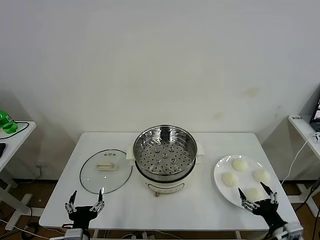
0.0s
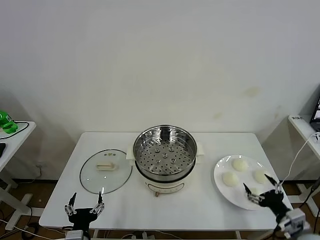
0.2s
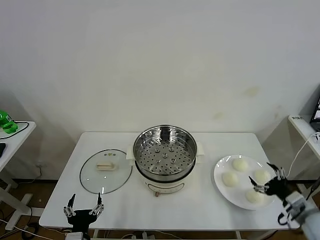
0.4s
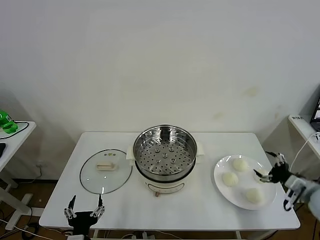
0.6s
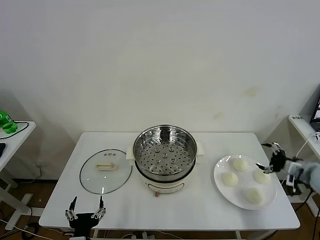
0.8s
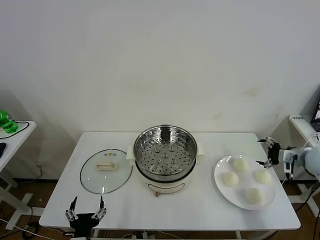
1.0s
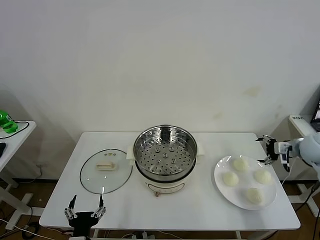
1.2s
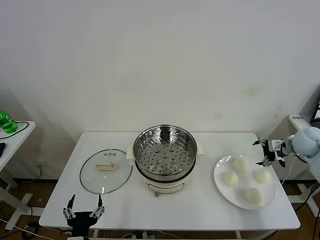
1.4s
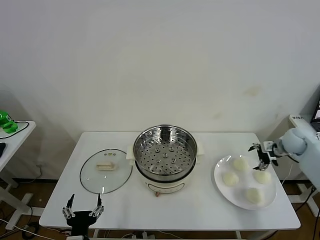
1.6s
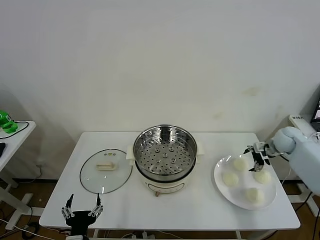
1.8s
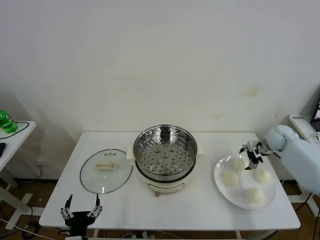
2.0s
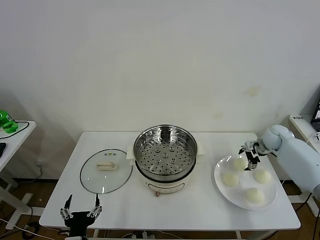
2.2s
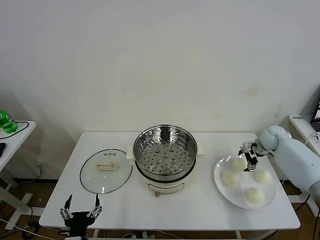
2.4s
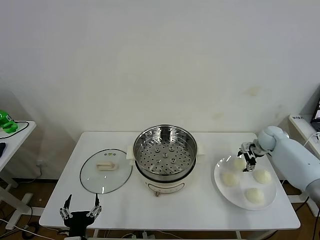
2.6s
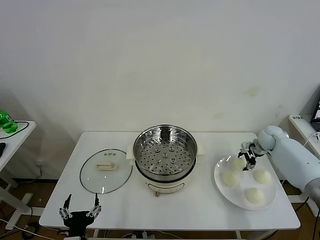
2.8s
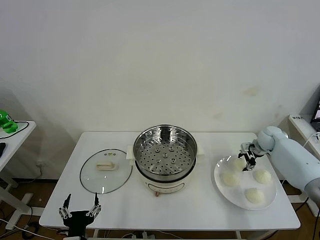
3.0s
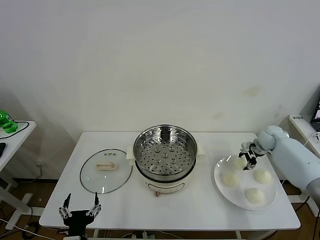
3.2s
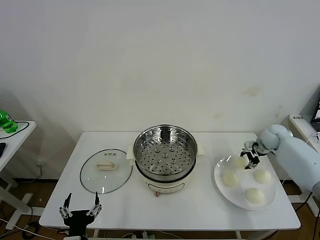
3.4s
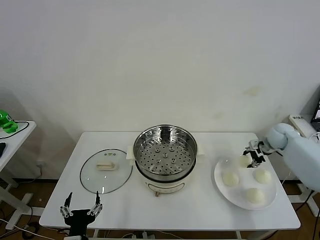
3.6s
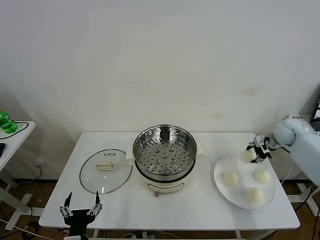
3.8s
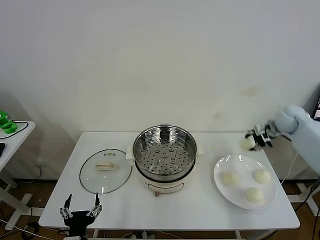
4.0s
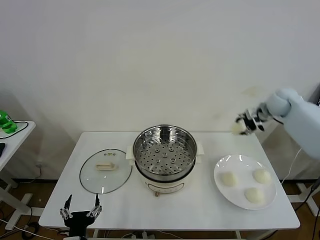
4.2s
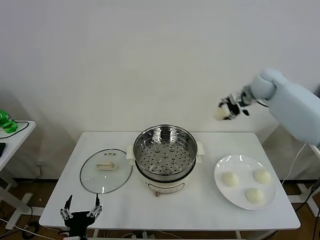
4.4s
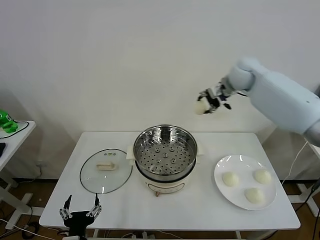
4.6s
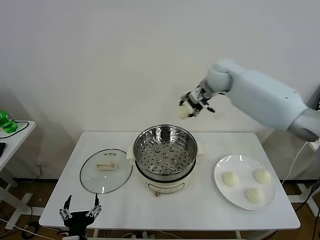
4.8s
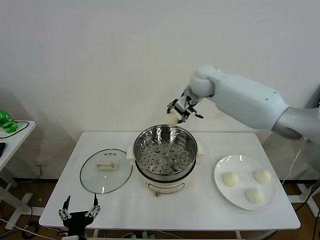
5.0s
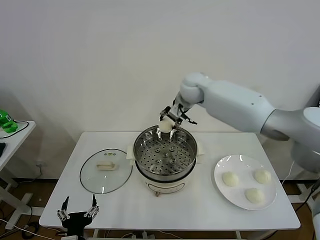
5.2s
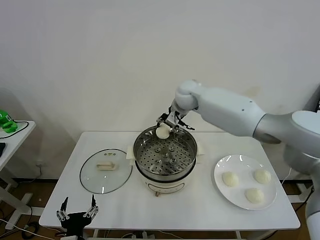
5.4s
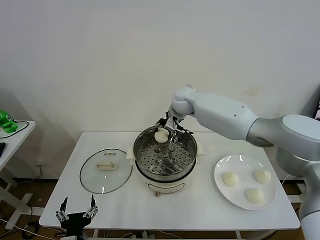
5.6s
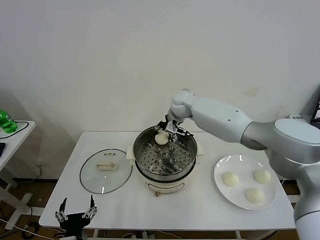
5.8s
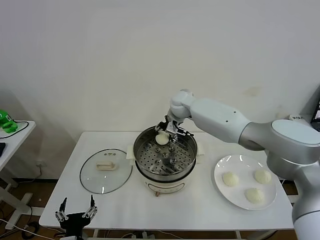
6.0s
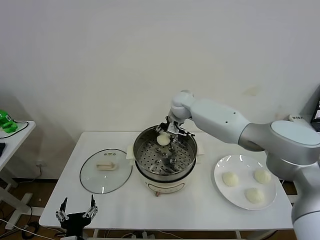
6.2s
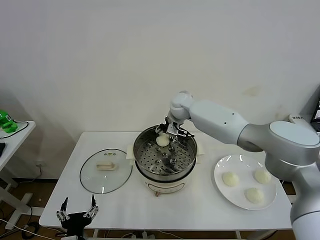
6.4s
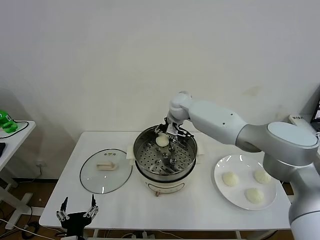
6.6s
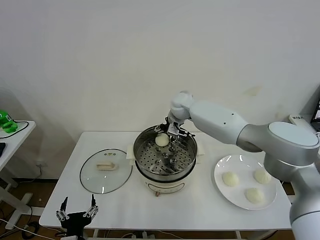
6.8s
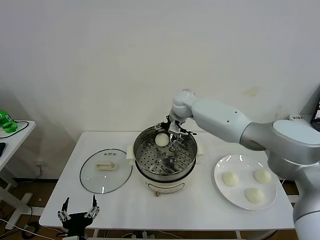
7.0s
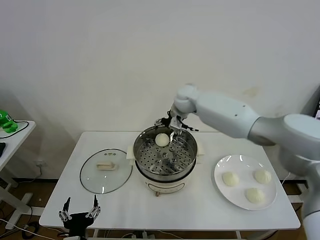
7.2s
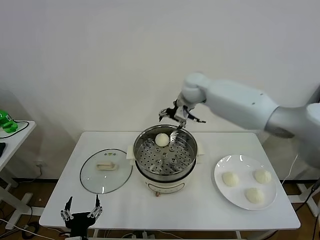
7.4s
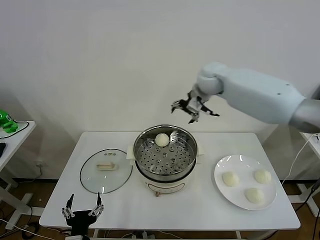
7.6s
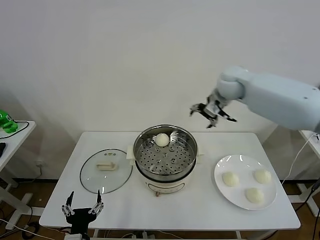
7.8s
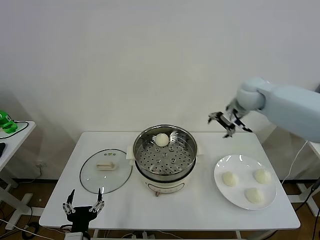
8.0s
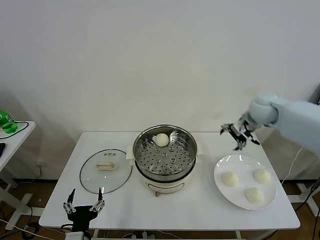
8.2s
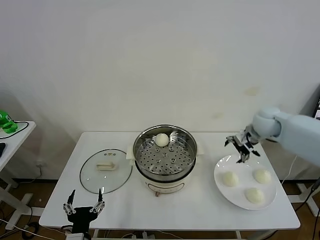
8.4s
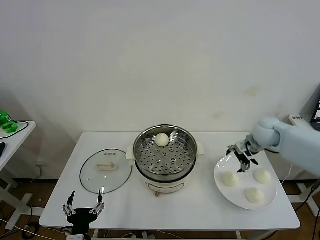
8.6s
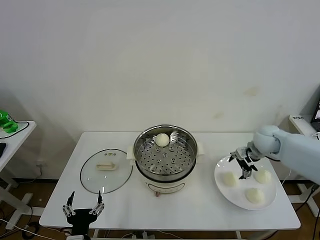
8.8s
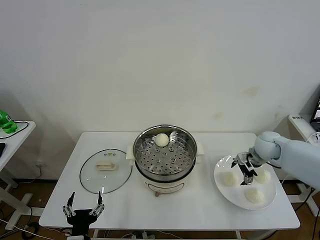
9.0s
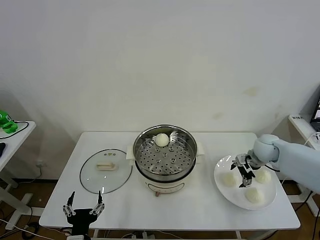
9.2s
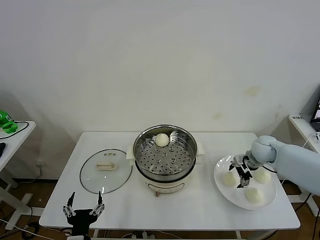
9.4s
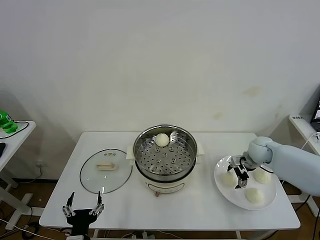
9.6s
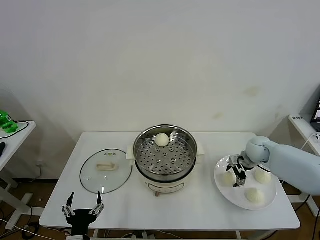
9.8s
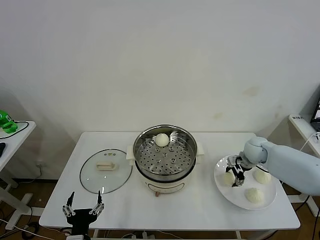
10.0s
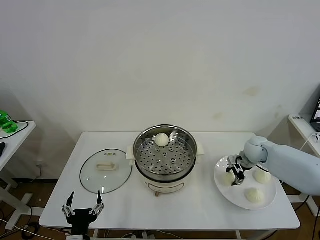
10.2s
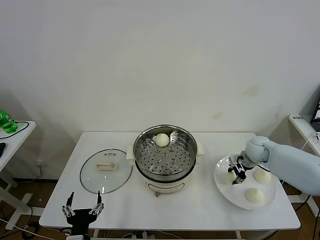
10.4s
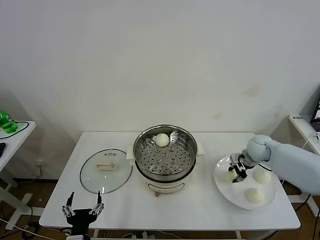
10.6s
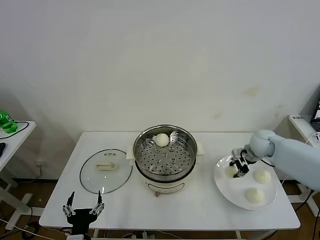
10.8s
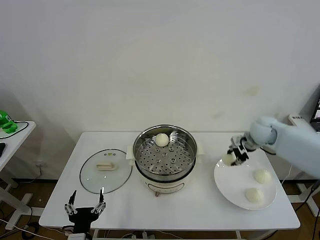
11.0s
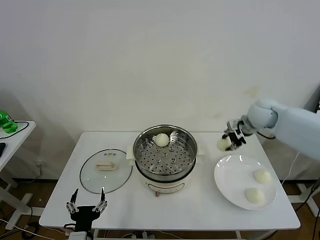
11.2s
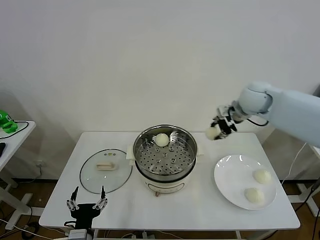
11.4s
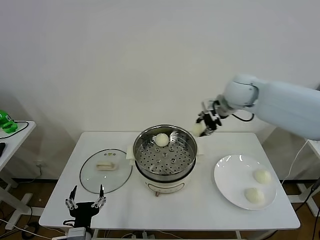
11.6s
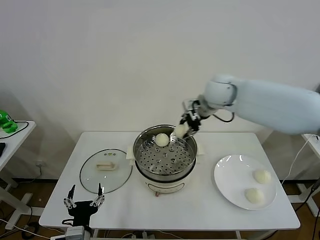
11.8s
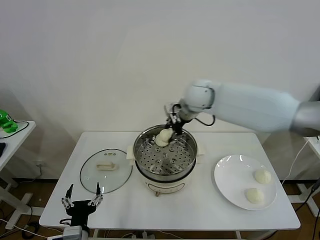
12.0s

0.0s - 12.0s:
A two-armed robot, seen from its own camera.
Task of the whole recording: take steamed baozi put them in steamer then cover it.
Step, 0.0s - 3.2s: Grasp the baozi in the plate with right gripper.
Step, 3.4s - 7.0s: Place the baozi on the steamer with right gripper.
Step, 7.2s - 10.6s: Grasp the baozi in the plate with right gripper.
1.6s - 3.0s: The right gripper ends up roughly 5 cm from where it was, and closes its fingers.
3.0s - 4.4s: The right gripper is displaced upward and to the left by roughly 30 cm.
4.4s - 6.0s: The right gripper is displaced to the left and downward by roughly 25 cm.
6.0s - 7.6s: The right gripper is displaced upward and to the right by about 15 cm, and opens.
7.6s - 9.0s: The right gripper heads downward, to the right and backward, covering about 30 cm.
9.0s - 10.4s: The right gripper closes.
10.4s - 12.0s: The right gripper moves to the left and upward, approximately 35 cm.

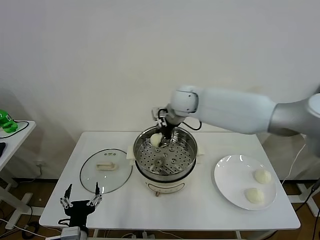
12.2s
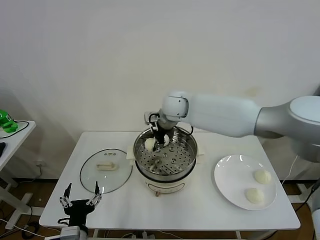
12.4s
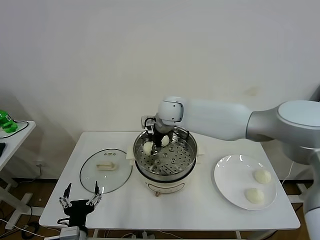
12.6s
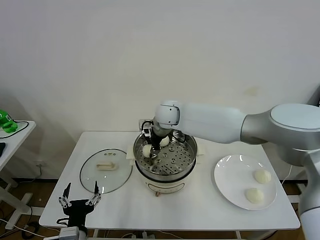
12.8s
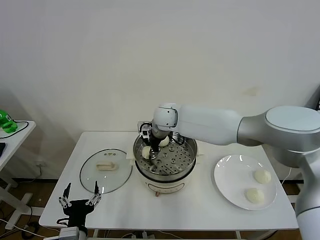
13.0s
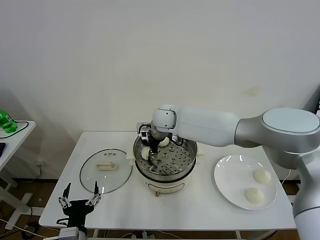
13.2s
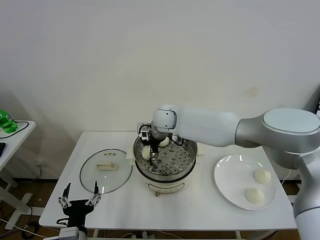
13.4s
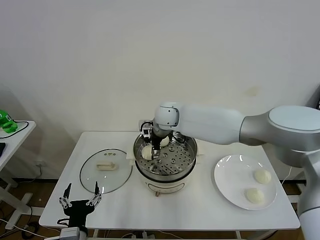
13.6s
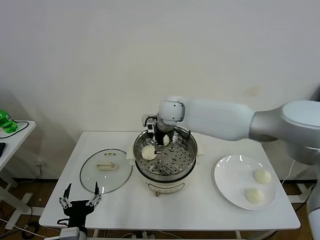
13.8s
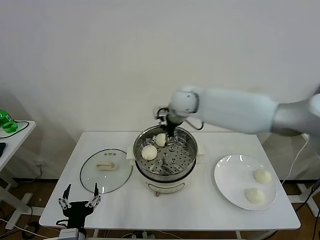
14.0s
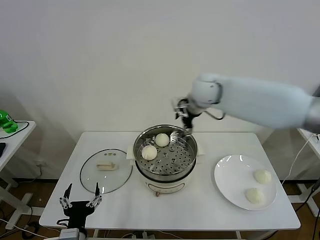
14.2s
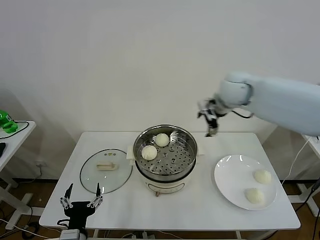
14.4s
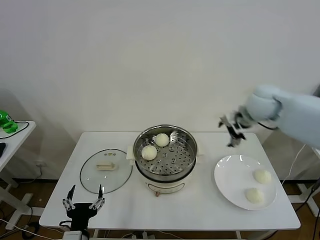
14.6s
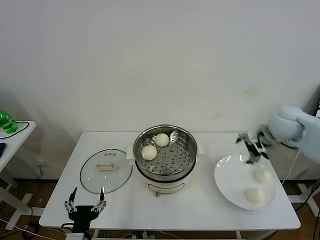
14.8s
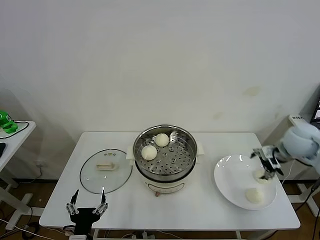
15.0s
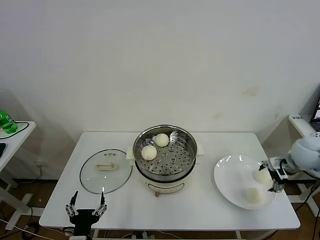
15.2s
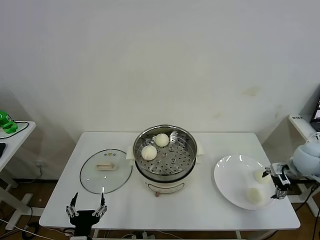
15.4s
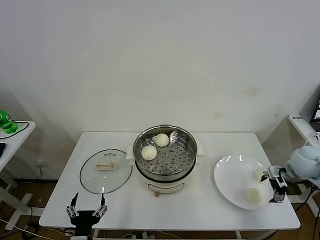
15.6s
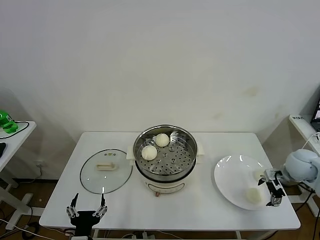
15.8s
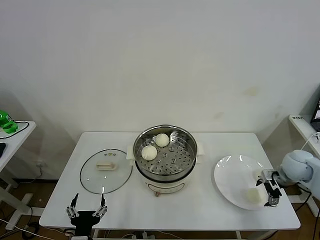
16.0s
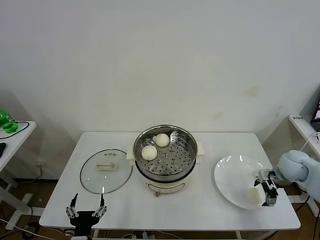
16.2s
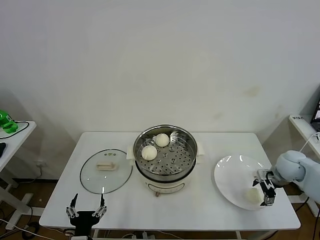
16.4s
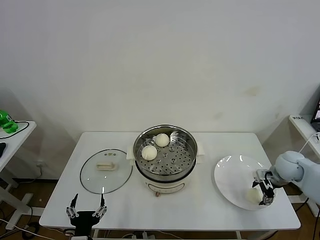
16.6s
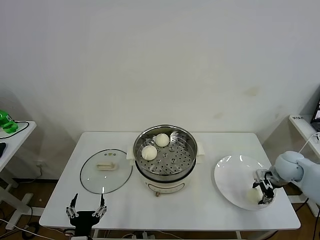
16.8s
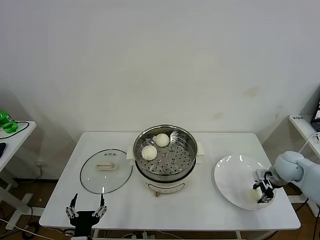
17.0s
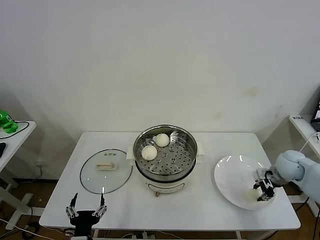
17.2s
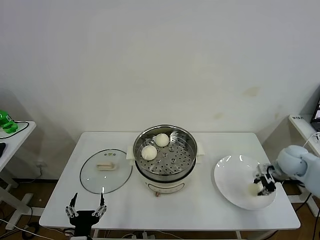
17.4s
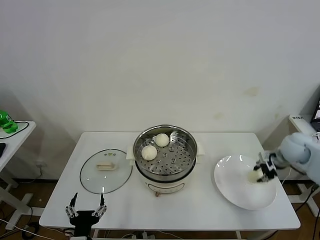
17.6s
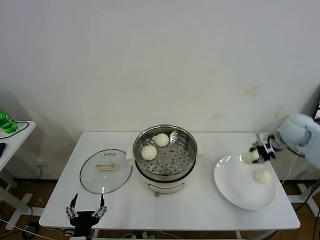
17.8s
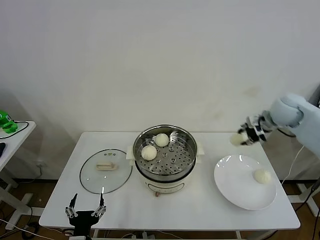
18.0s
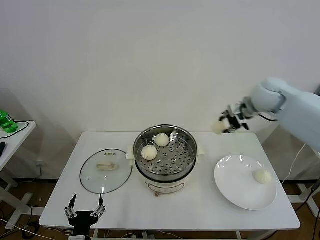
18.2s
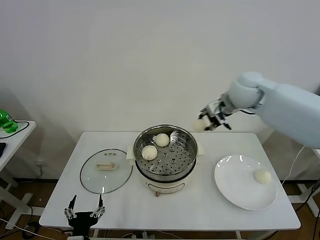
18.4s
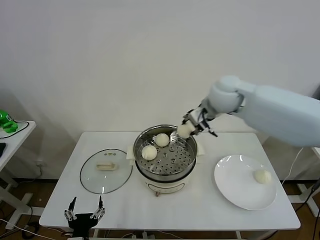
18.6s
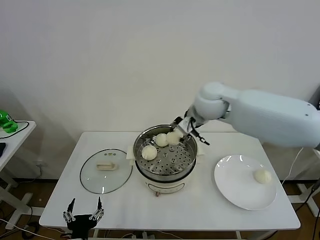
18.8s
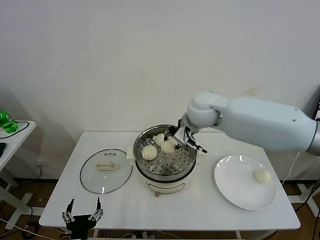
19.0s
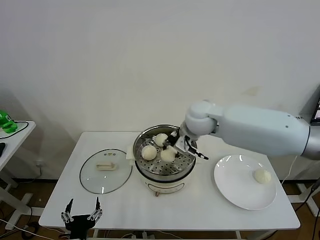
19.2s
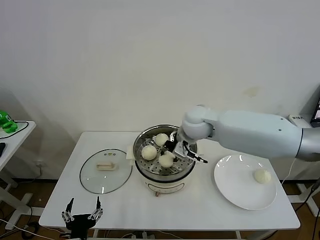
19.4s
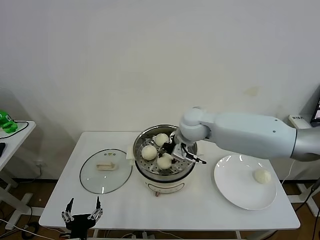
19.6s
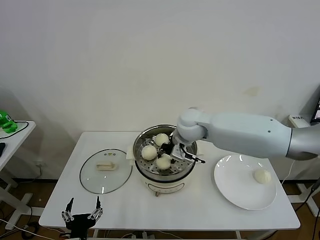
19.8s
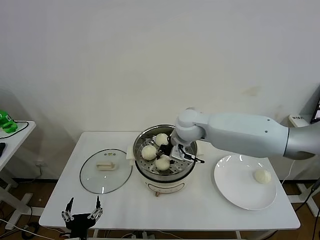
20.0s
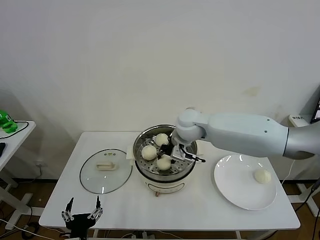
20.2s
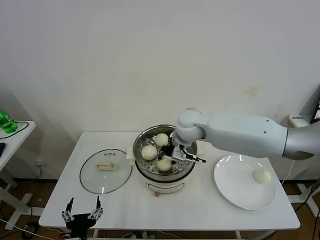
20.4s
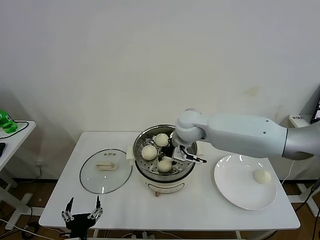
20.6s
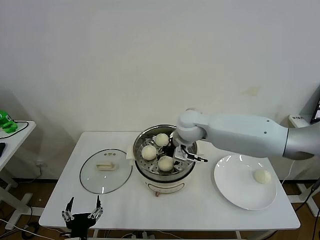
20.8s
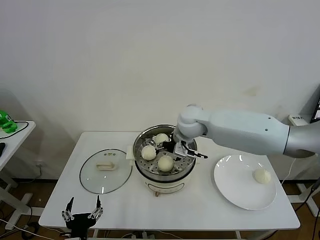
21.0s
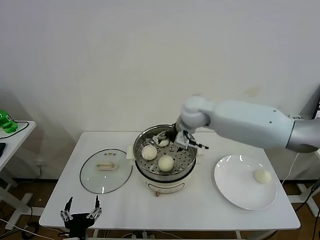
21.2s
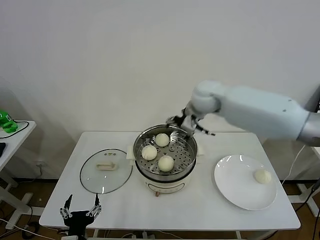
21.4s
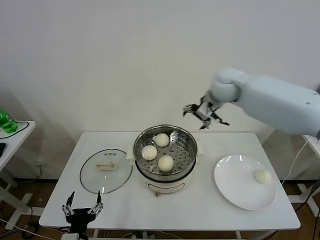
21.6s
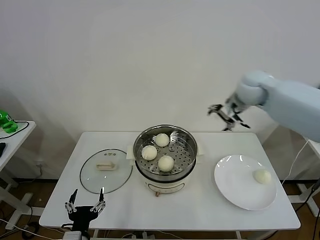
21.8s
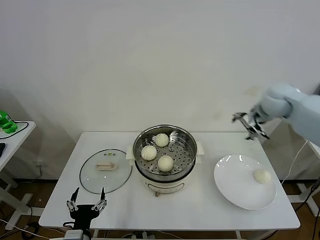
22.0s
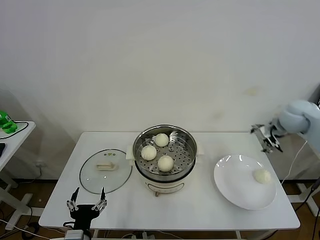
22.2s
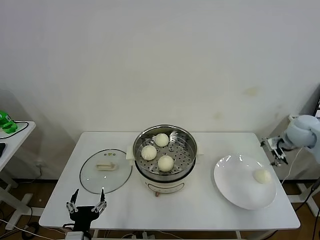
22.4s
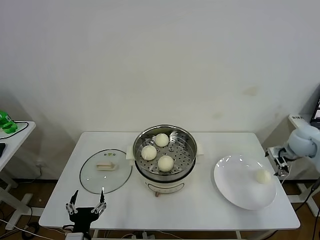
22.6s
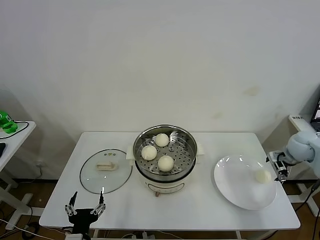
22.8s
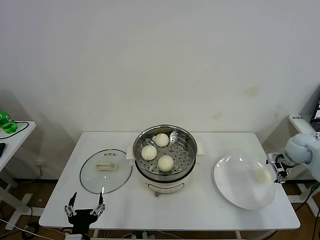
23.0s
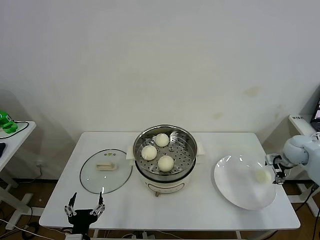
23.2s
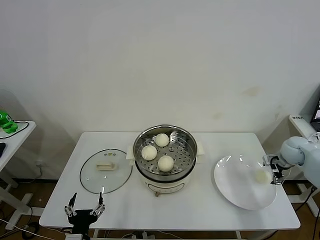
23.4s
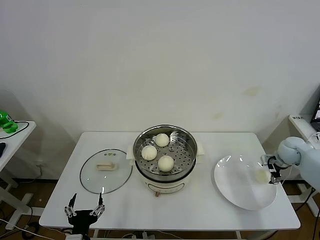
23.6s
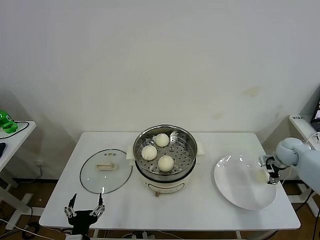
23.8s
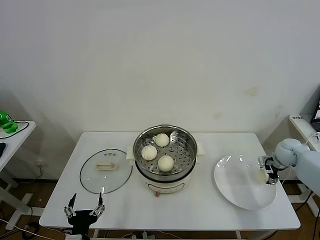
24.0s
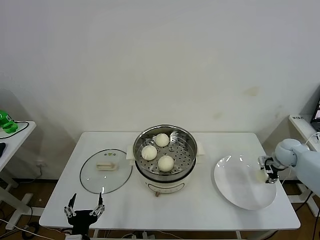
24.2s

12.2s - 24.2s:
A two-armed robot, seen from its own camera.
Task of the whole recording: take steamed baozi put them in steamer then cover it.
Step, 13.6s - 17.2s: Grasp the baozi in the plate with right gripper.
Step, 17.4s - 20.8s: Place the baozi on the steamer with right gripper.
12.2s - 13.8s: The right gripper opens.
13.8s - 15.2s: The right gripper goes roughly 40 cm to the right.
15.2s - 16.6s: The right gripper travels downward by about 10 cm.
16.6s - 18.2s: The right gripper travels upward, to the left and forward by about 30 cm, and closes up.
18.2s - 19.8s: The right gripper travels to the left and downward by roughly 25 cm.
19.8s - 21.2s: The right gripper opens up.
21.2s - 22.6s: The right gripper shifts roughly 35 cm to the right.
22.6s - 24.2s: The right gripper travels downward by approximately 10 cm, and closes.
